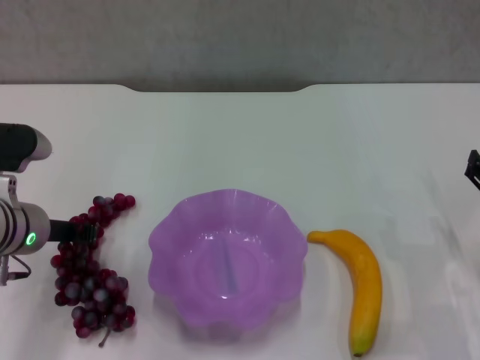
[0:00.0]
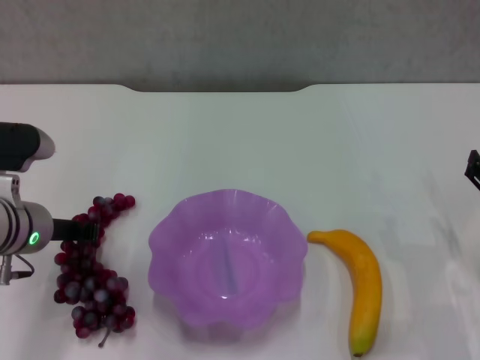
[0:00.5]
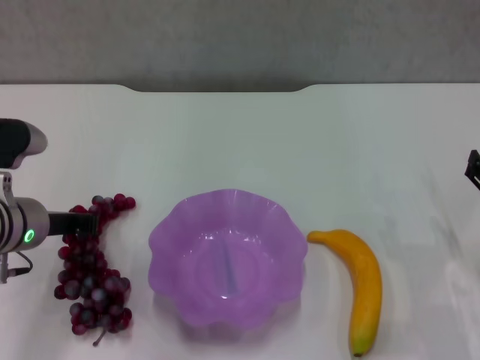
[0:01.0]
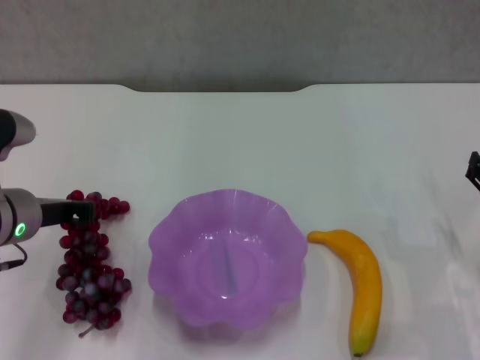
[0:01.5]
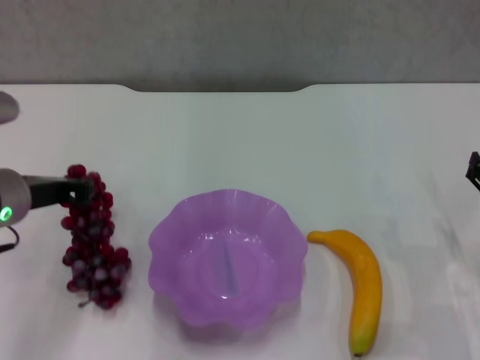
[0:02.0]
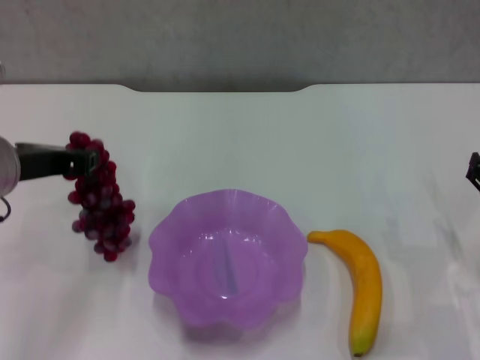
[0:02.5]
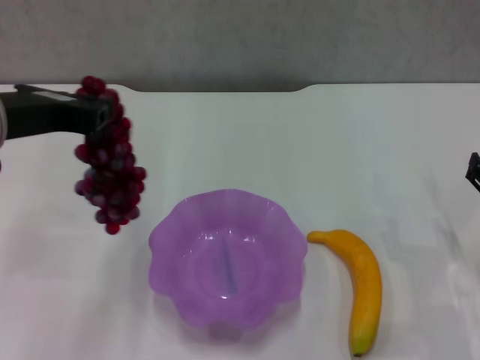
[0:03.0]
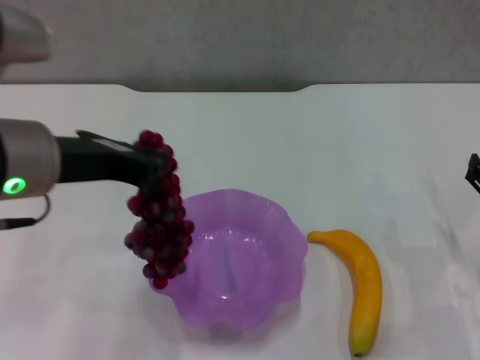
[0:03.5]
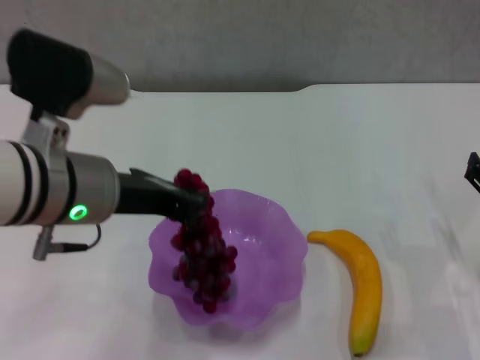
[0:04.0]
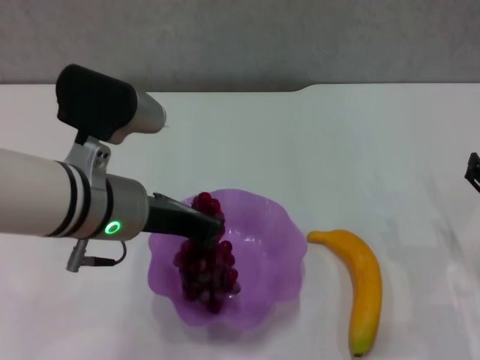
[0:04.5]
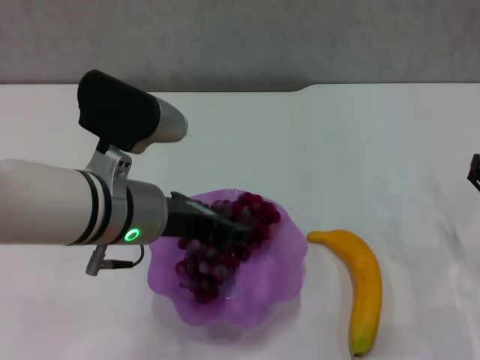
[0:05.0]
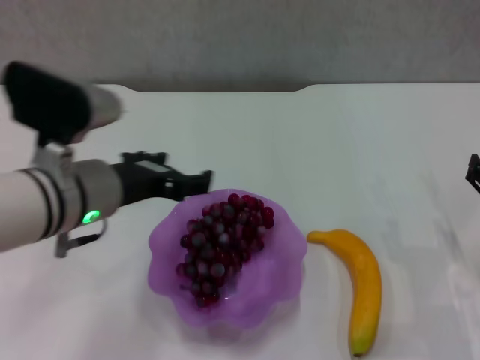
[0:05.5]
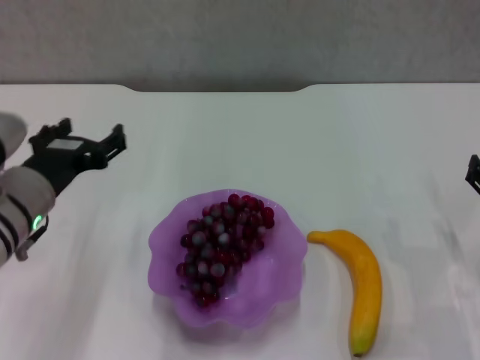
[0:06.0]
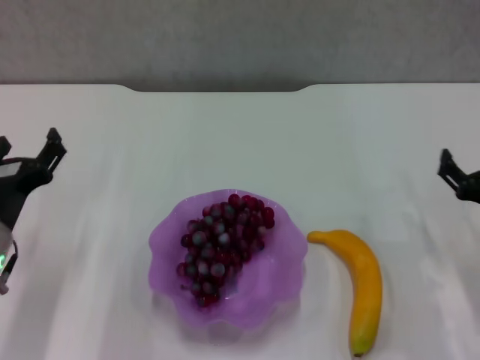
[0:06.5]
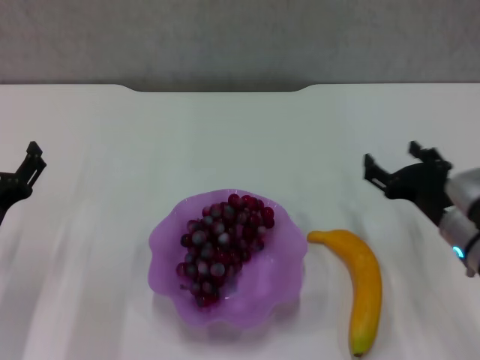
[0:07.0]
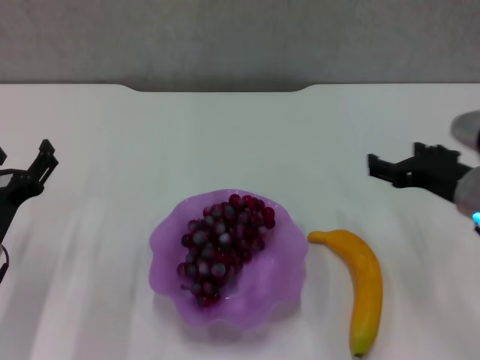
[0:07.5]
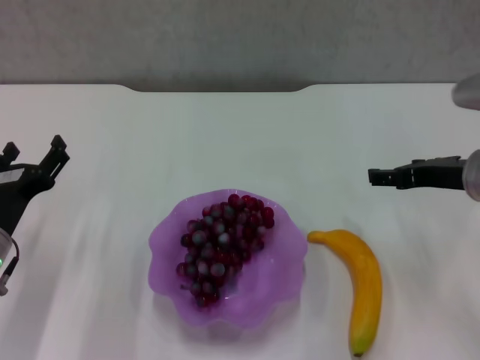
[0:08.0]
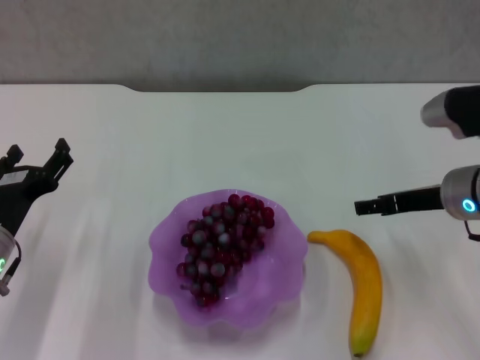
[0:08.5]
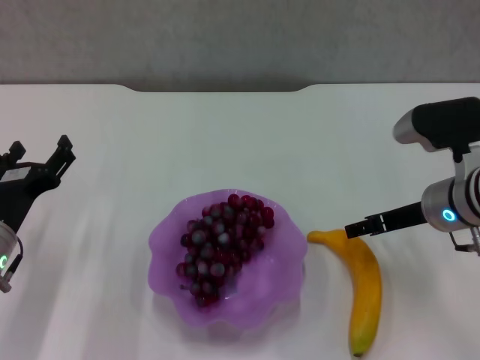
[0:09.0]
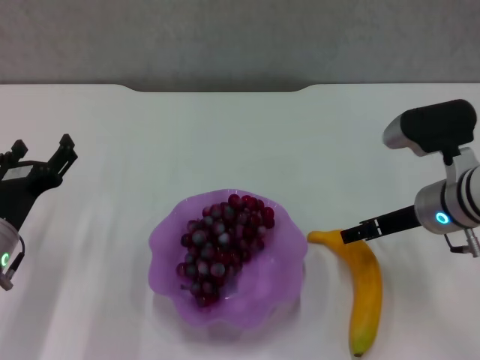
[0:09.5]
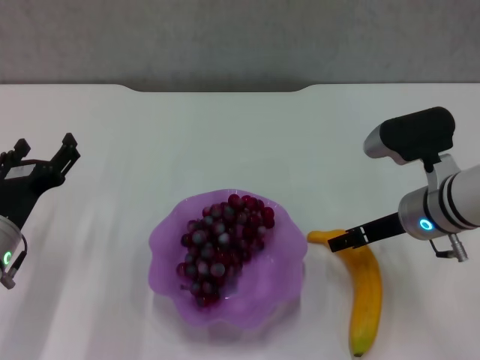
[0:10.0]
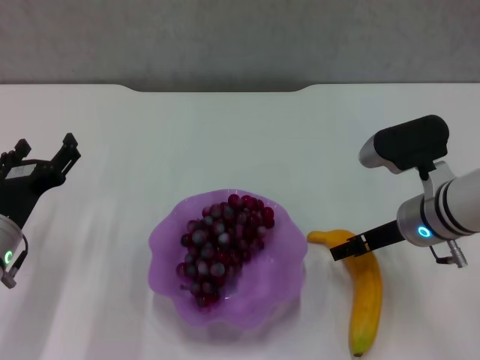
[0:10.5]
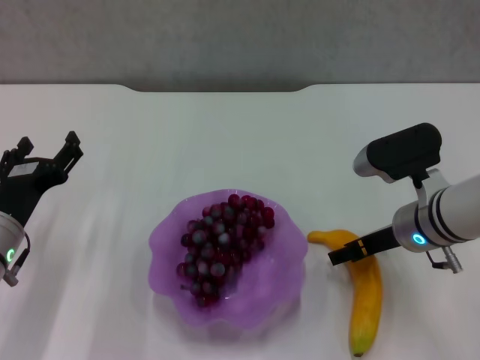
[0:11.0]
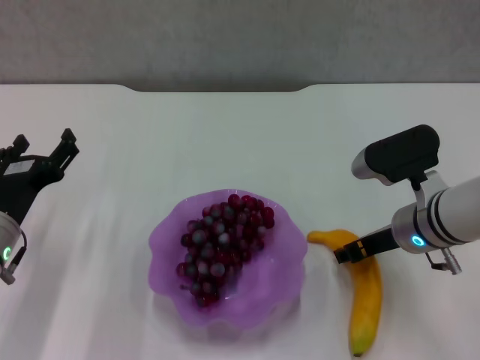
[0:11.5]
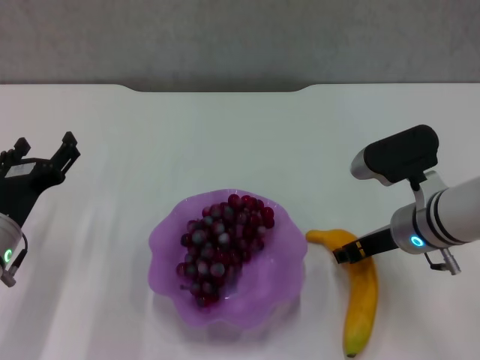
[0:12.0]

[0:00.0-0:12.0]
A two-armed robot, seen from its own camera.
Step, 0:00.0 to 0:05.0: Place the grape in the purple plate with left gripper.
Step, 0:05.5 to 0:11.5: Grasp the banana with right gripper.
0:00.0 to 0:02.0: The left gripper heads upward, covering about 5 cm.
0:02.0 to 0:04.0: The left gripper heads to the right and upward, covering approximately 10 cm.
0:04.0 to 0:06.0: The left gripper travels downward and to the left by roughly 10 cm, and opens.
0:06.0 to 0:08.0: The left gripper travels downward and to the left by roughly 10 cm; the right gripper heads upward, to the left and forward, covering some 15 cm.
0:08.0 to 0:10.0: The right gripper is displaced downward by some 5 cm.
0:10.0 to 0:12.0: The right gripper closes its fingers.

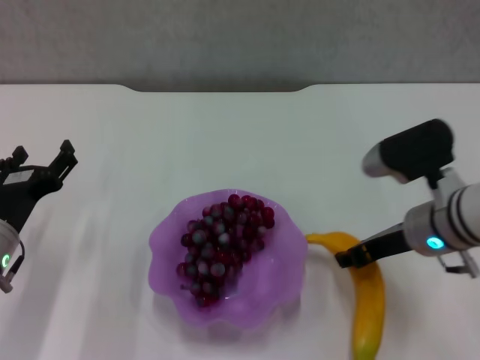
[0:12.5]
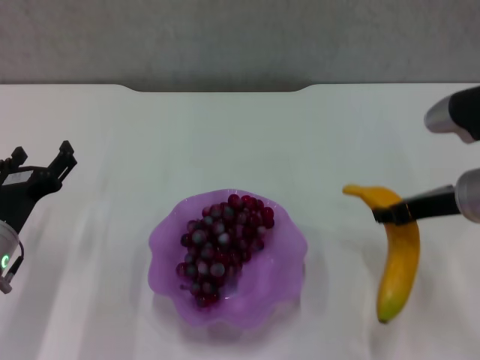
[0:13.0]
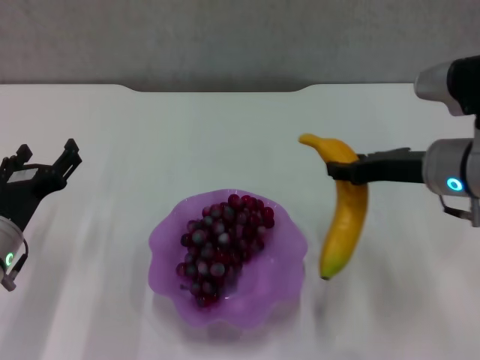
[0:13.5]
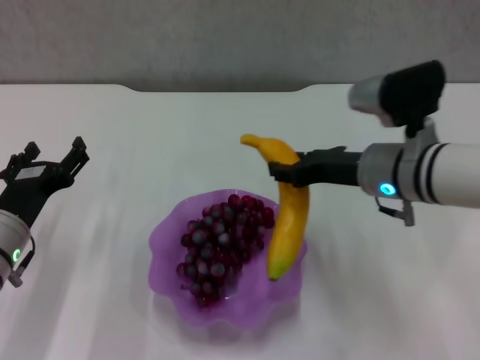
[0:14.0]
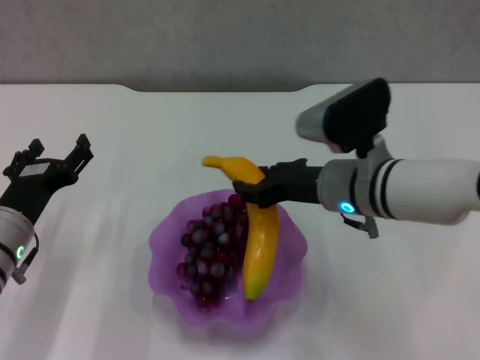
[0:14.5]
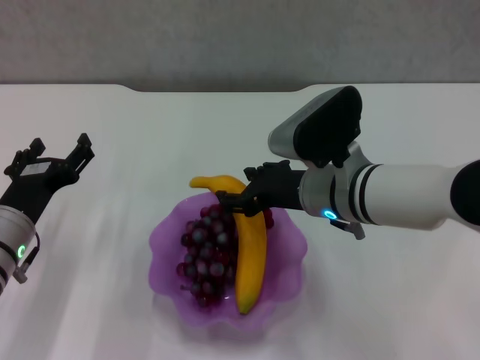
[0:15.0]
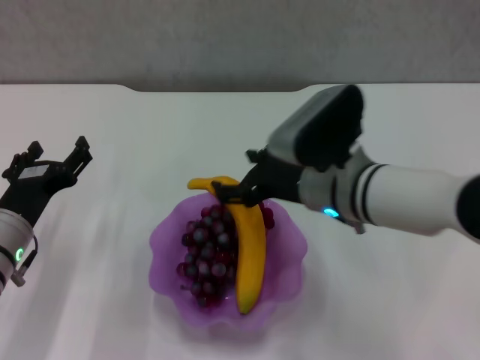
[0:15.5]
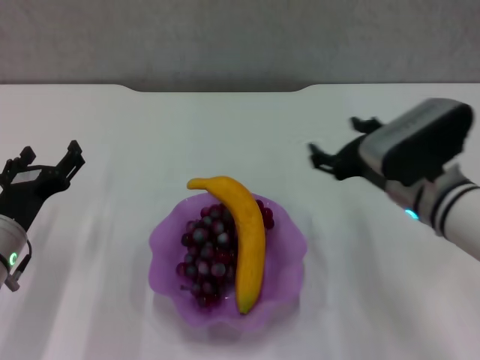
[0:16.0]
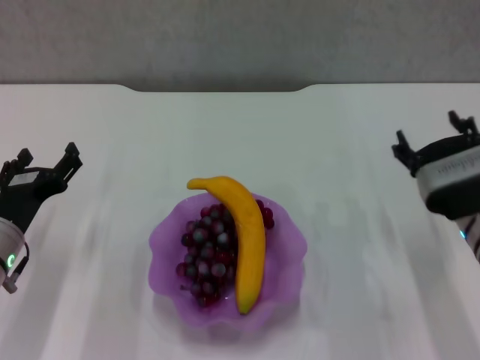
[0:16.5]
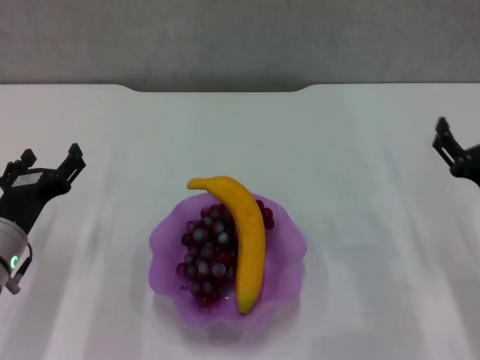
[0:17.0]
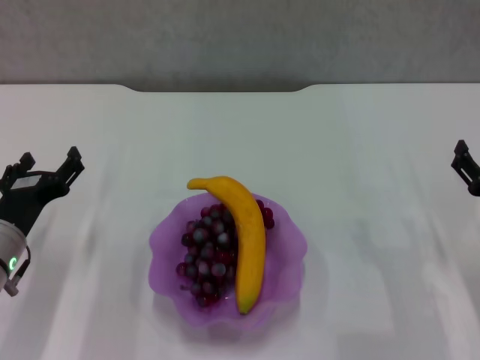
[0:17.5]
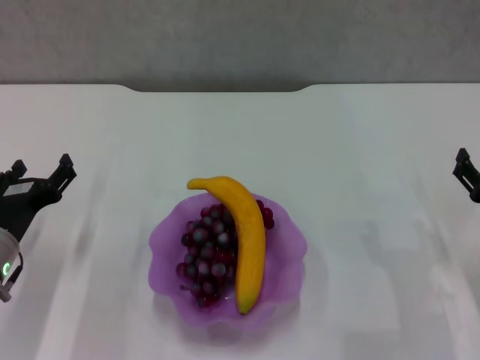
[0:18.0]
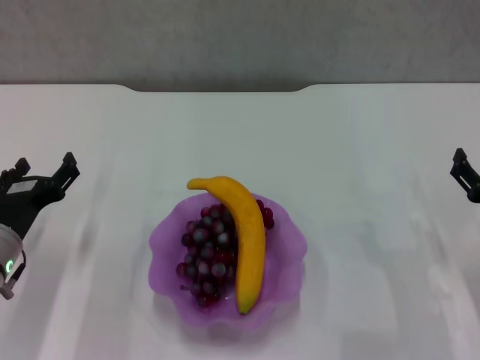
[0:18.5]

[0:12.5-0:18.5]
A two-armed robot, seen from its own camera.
Step, 0:12.5 to 0:15.5: Place the banana in the purple plate with right gripper.
0:12.5 to 0:14.5: The right gripper shifts approximately 10 cm to the left.
0:14.5 to 0:16.5: The right gripper is displaced to the right by about 10 cm, and opens its fingers.
0:16.5 to 0:18.5: The right gripper is displaced to the right by roughly 5 cm.

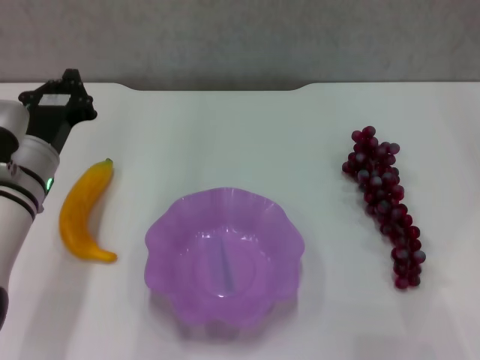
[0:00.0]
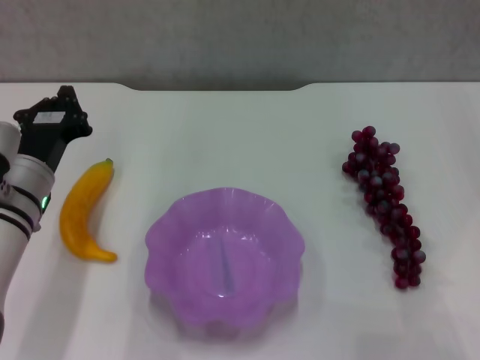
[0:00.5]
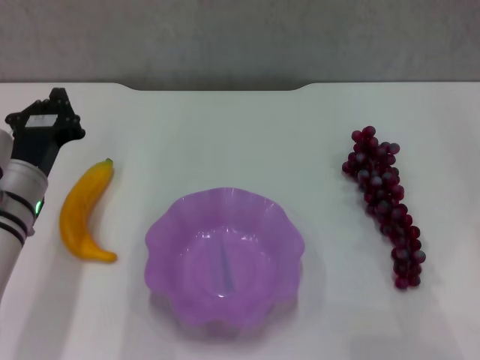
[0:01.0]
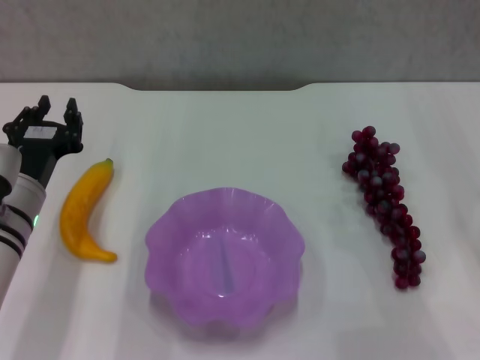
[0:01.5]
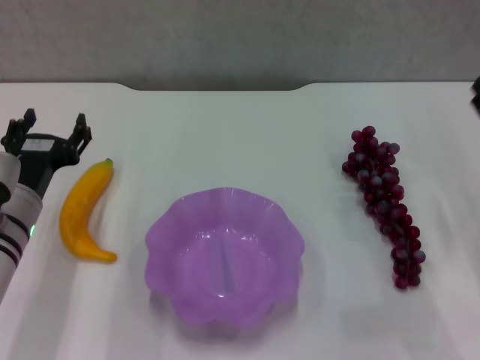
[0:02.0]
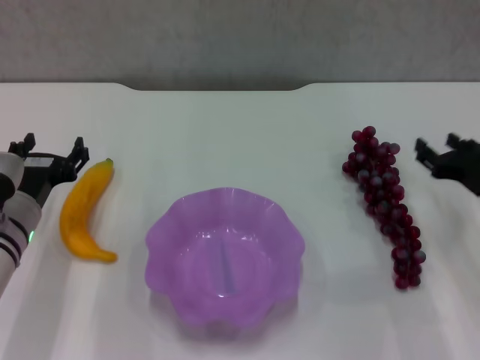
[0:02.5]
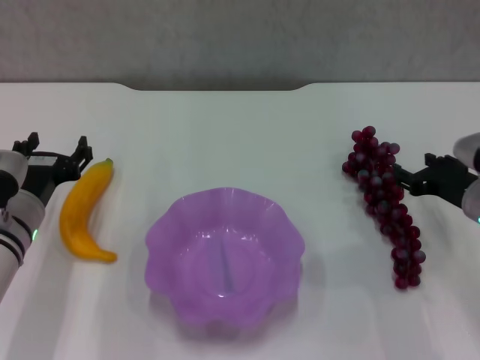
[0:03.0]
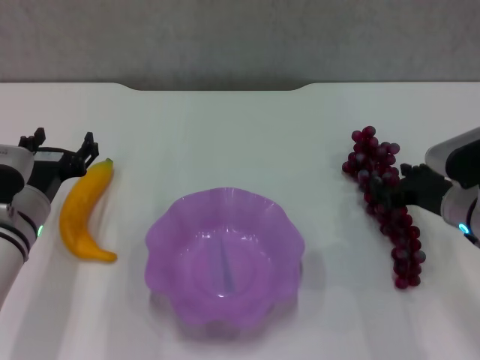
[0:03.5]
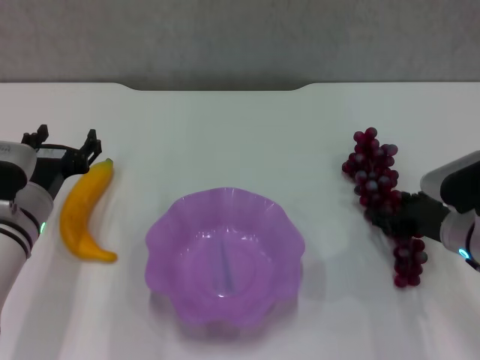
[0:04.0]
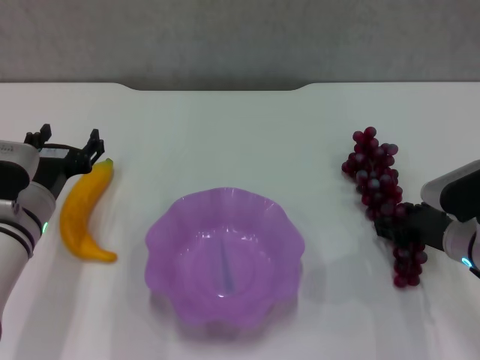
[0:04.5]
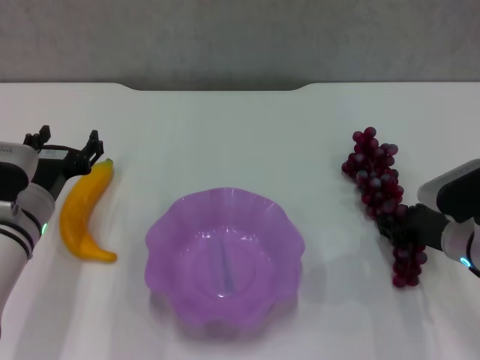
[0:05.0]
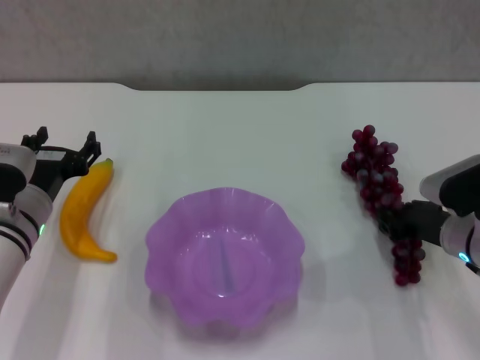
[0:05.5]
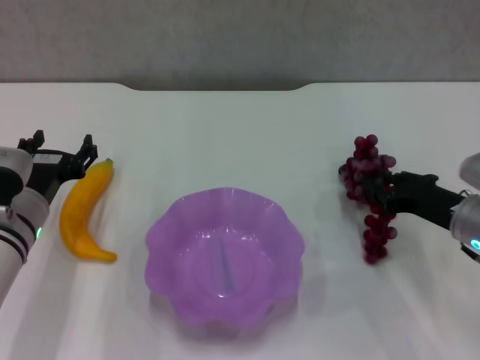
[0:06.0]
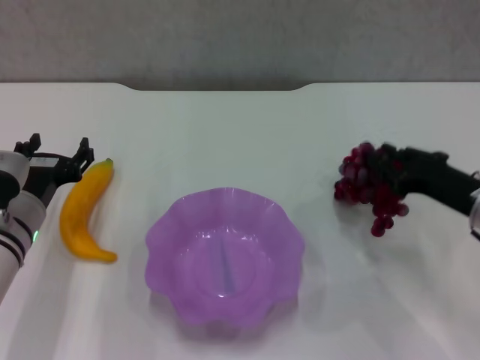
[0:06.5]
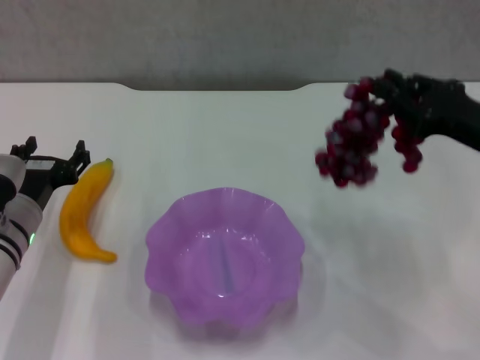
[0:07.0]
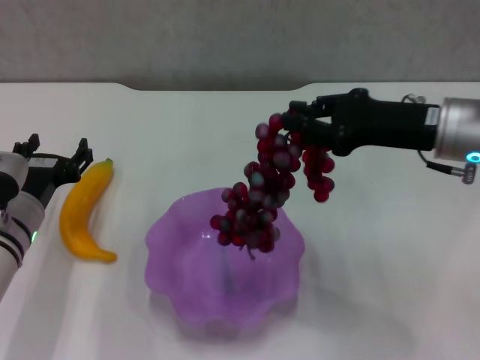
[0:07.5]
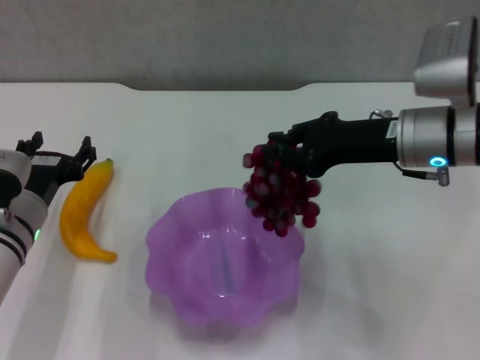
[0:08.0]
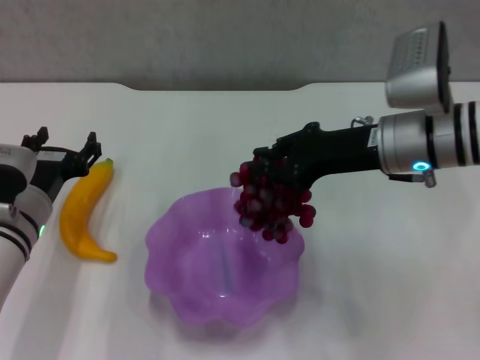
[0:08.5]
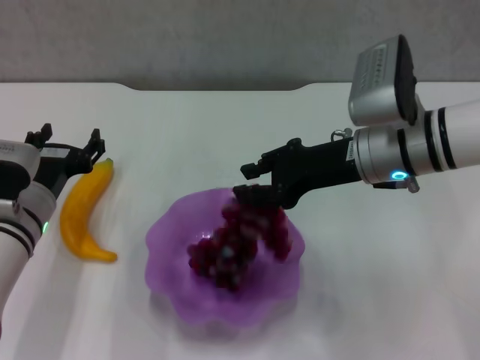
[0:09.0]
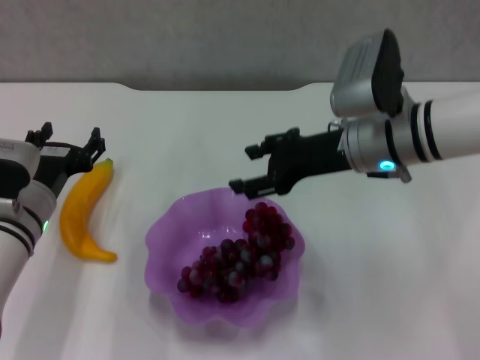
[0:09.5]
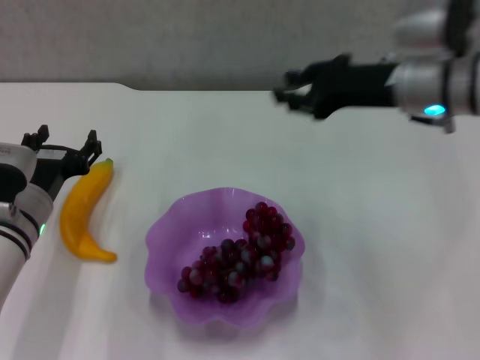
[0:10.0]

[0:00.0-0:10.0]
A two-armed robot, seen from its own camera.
Step, 0:00.0 to 0:05.0: Grasp the grape with right gripper.
Step, 0:05.5 to 0:09.5: Place the grape in the purple plate with right gripper.
0:00.0 to 0:02.0: The left gripper opens its fingers. Meanwhile the right gripper opens up.
0:02.0 to 0:04.0: The right gripper shifts roughly 10 cm to the left and downward.
0:04.0 to 0:06.0: The right gripper closes its fingers.
0:06.0 to 0:08.0: The right gripper is displaced upward and to the left by roughly 15 cm.
0:08.0 to 0:10.0: The right gripper opens.
